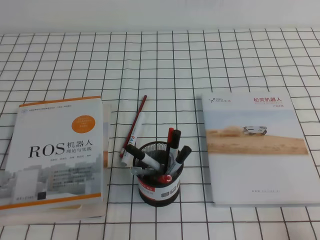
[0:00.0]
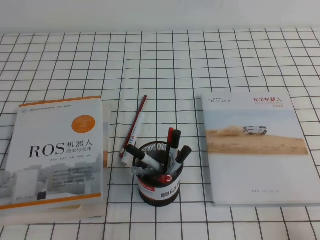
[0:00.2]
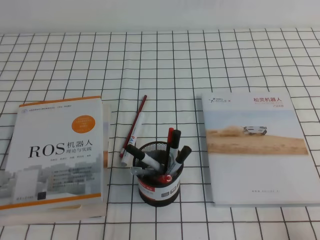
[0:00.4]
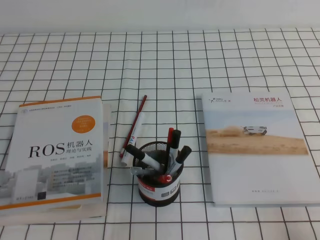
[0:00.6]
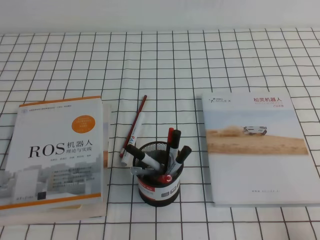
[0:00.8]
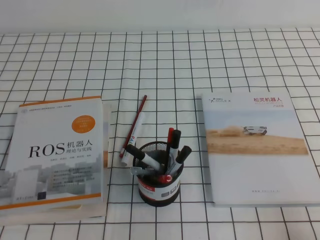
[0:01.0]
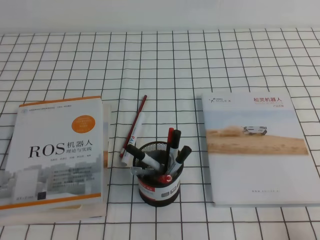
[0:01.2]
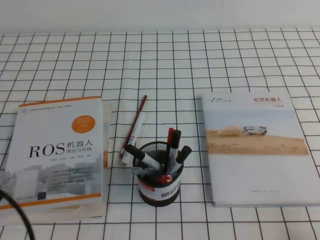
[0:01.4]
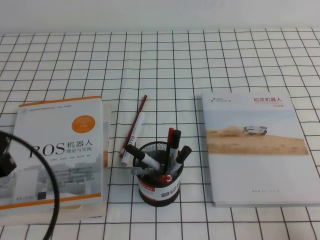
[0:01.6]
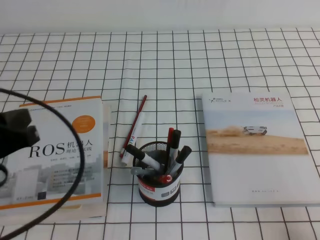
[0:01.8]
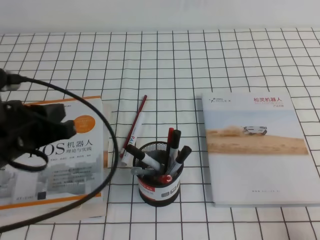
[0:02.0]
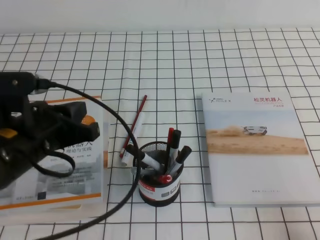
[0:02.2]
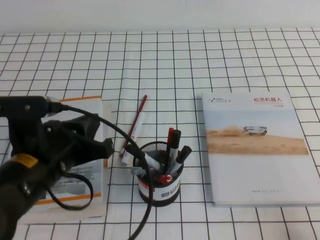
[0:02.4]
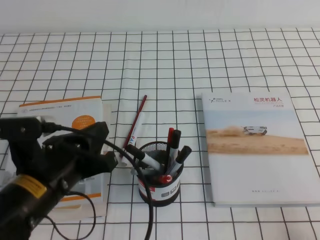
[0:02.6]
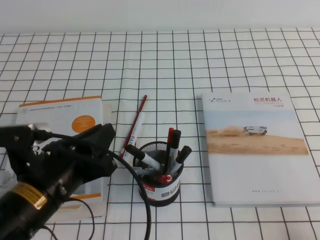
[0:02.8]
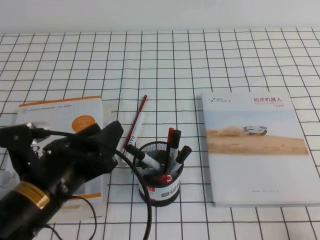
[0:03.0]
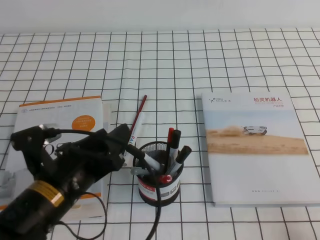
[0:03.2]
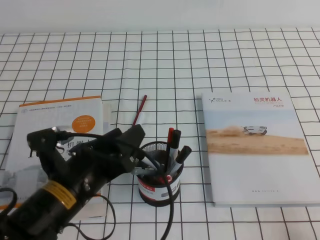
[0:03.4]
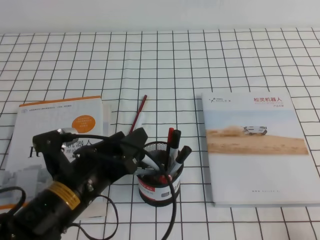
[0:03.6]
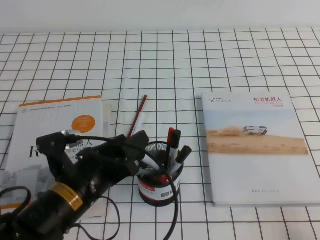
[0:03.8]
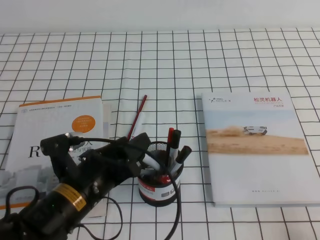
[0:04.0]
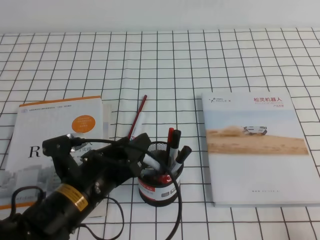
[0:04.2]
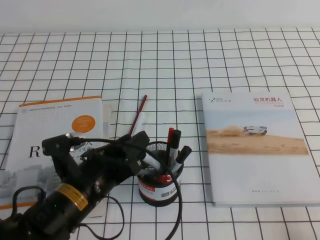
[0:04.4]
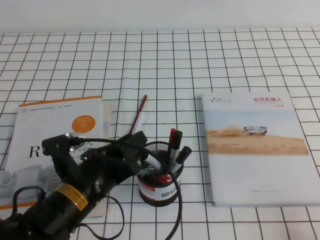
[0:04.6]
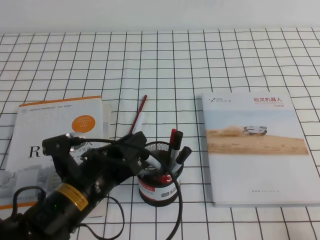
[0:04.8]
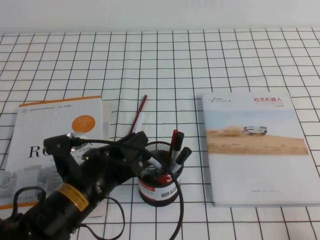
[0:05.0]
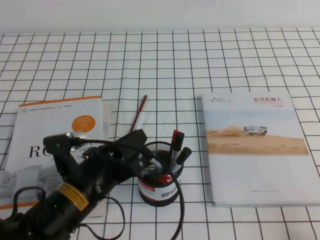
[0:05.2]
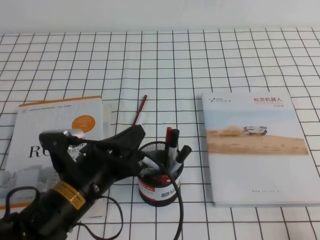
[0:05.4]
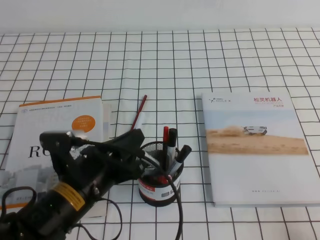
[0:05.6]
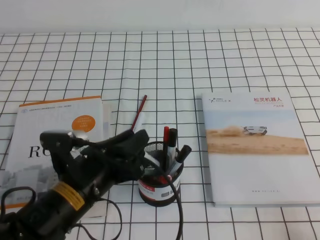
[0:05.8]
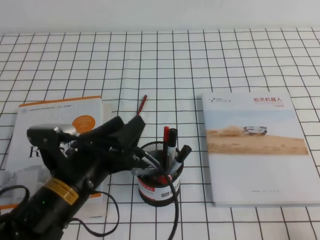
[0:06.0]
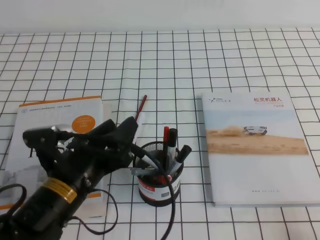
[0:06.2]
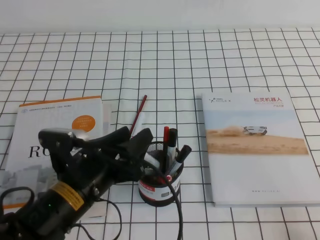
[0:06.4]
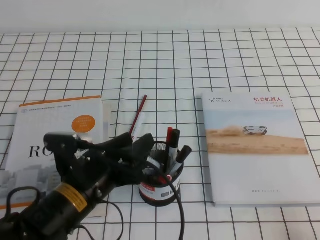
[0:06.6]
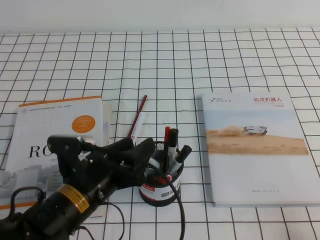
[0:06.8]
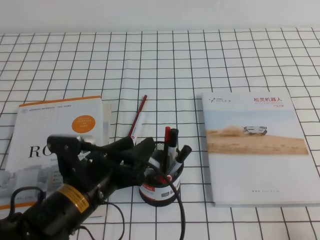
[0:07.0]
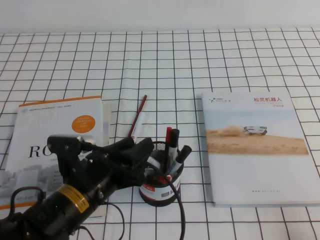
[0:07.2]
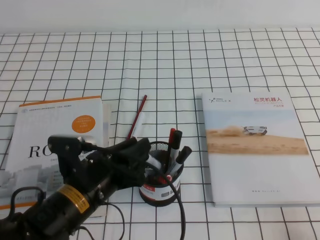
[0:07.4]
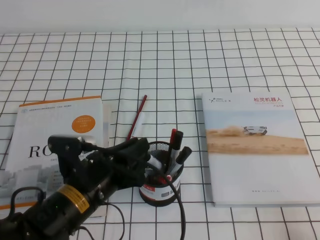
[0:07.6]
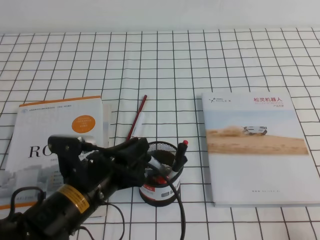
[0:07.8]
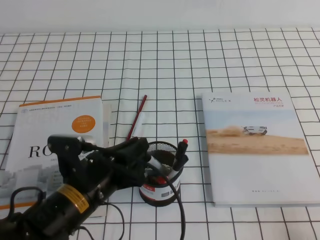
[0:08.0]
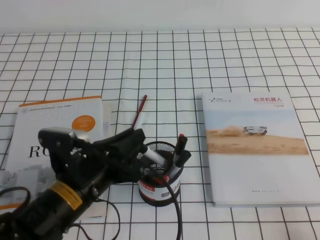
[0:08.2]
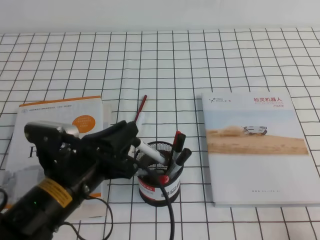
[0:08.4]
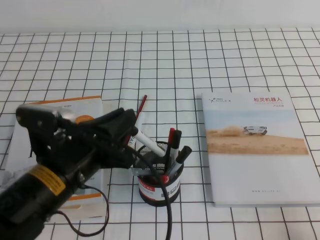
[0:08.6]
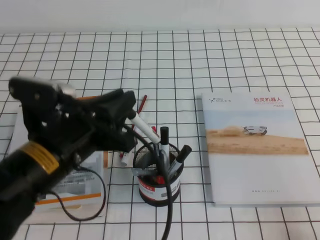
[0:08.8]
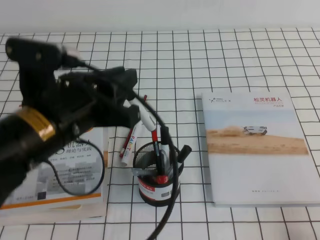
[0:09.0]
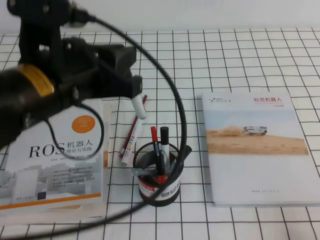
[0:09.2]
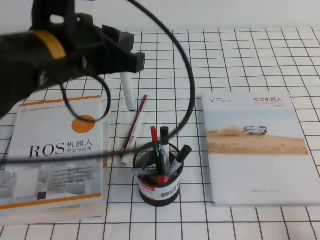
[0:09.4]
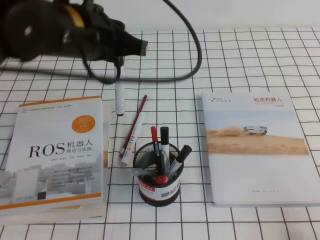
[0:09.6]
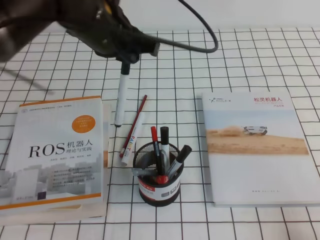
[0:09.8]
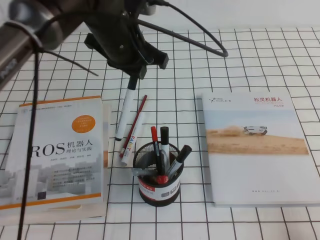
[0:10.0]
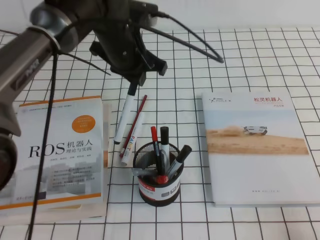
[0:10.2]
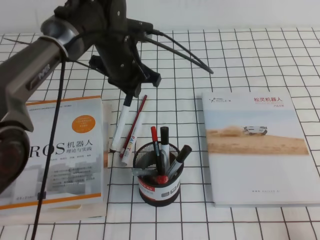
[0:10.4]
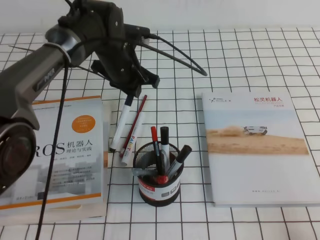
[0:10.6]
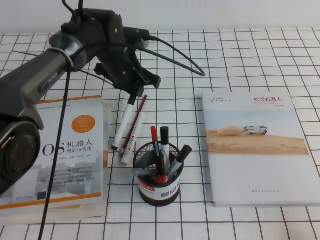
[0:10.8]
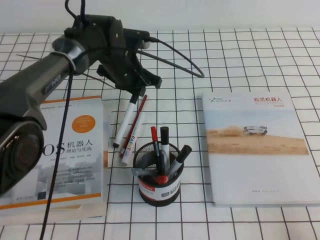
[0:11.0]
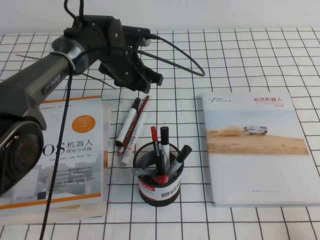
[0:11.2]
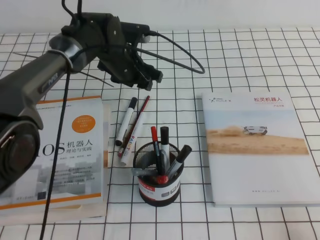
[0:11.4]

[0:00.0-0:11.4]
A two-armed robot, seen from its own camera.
0:01.4 to 0:02.8: The left gripper heads to the right and forward, covering roughly 15 cm.
0:02.8 to 0:04.2: The left gripper is displaced downward by approximately 5 cm, and opens up.
0:04.2 to 0:05.6: The left gripper closes its fingers.
0:05.6 to 0:07.2: The left gripper opens.
0:07.2 to 0:08.6: The left gripper shifts some 5 cm upward, and closes.
0:08.6 to 0:10.0: The left gripper shifts some 20 cm forward and upward.
0:10.0 to 0:11.4: The left gripper goes approximately 15 cm downward and forward, and opens its fingers.

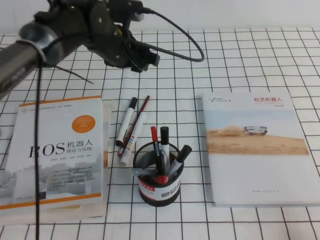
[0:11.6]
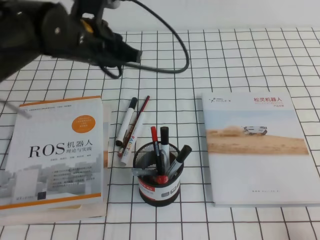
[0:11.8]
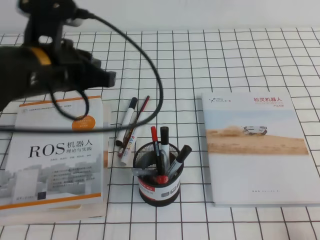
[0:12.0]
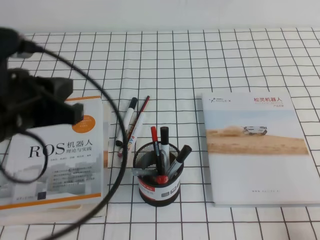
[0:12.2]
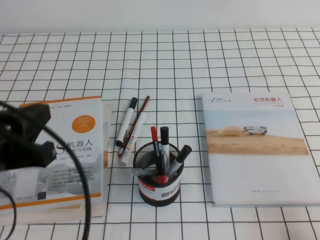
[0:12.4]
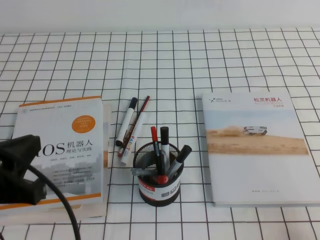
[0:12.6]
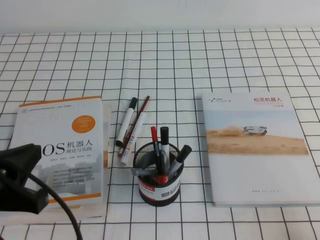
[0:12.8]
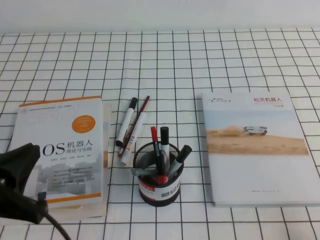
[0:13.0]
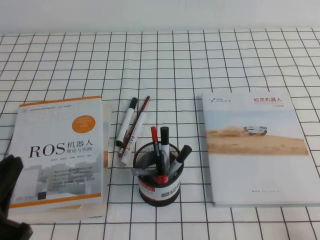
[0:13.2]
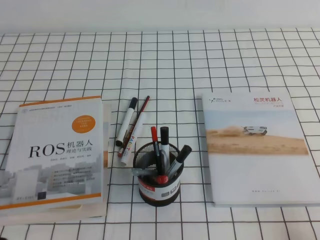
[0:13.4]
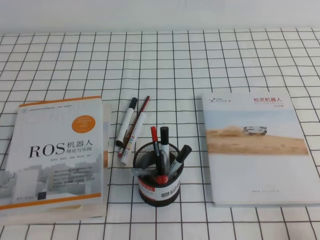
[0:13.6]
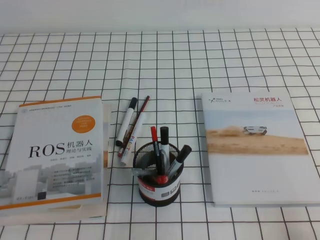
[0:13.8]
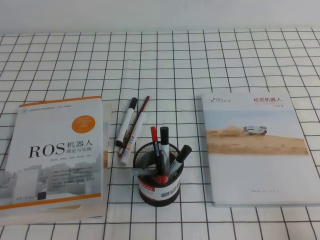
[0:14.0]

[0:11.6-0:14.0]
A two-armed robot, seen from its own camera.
Step, 0:11.6 to 0:14.0: Pick up the pen from the pen holder.
0:11.6 to 0:12.8: The left gripper shifts about 35 cm backward and to the left, and closes.
0:12.8 to 0:14.0: The left gripper travels downward and backward by about 10 cm.
